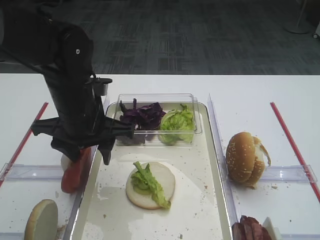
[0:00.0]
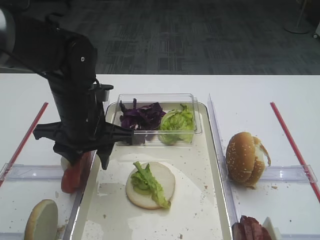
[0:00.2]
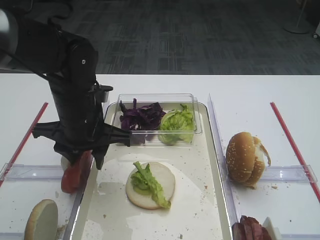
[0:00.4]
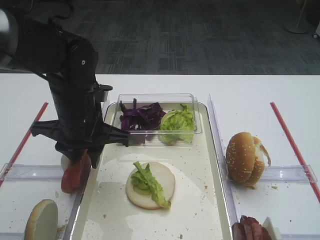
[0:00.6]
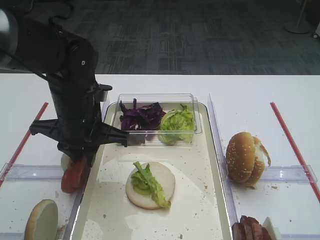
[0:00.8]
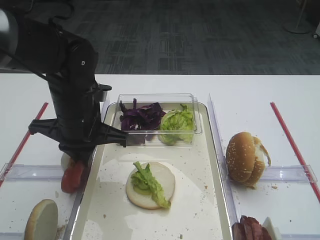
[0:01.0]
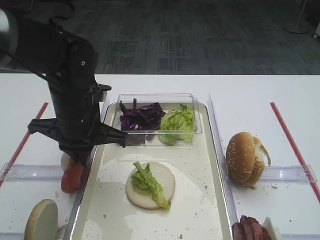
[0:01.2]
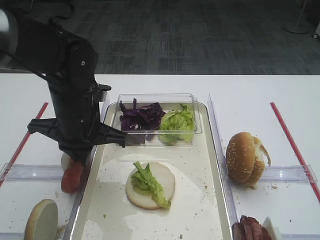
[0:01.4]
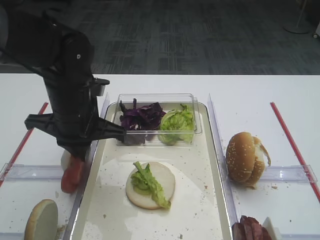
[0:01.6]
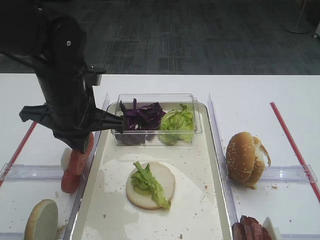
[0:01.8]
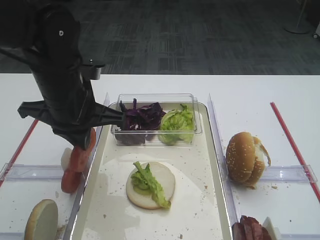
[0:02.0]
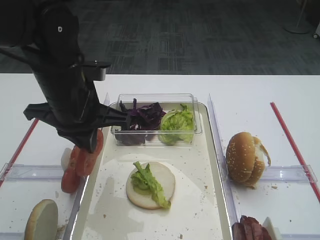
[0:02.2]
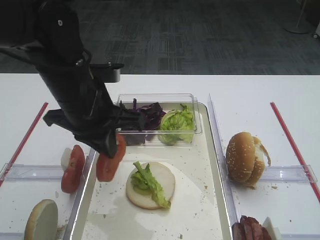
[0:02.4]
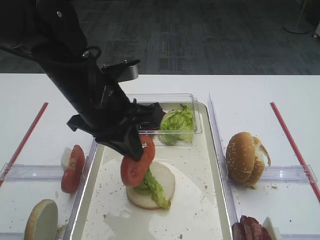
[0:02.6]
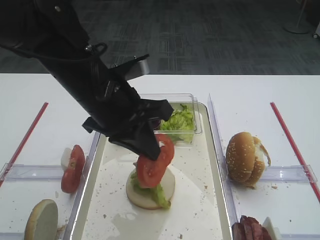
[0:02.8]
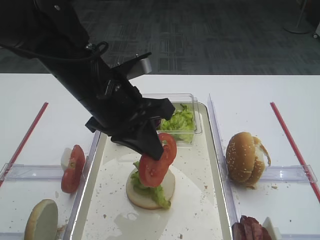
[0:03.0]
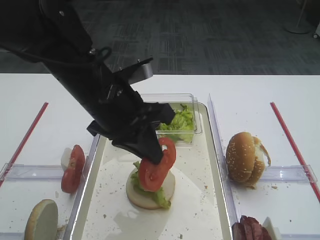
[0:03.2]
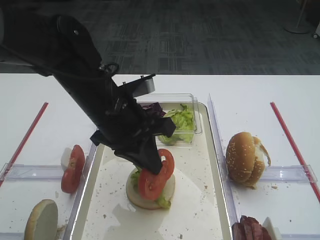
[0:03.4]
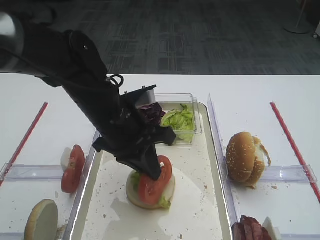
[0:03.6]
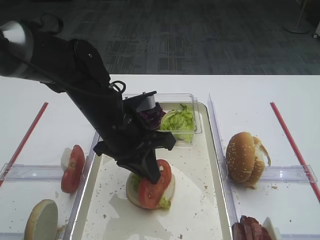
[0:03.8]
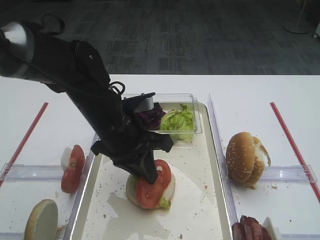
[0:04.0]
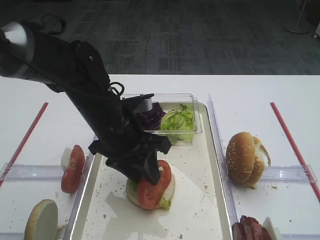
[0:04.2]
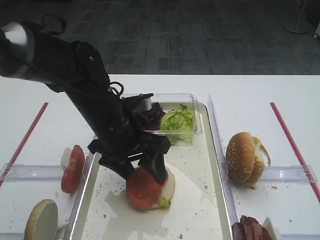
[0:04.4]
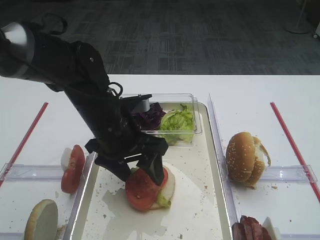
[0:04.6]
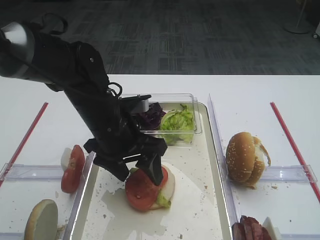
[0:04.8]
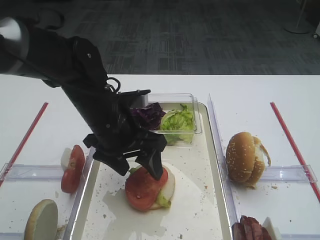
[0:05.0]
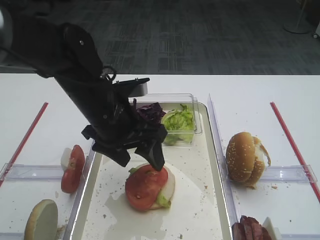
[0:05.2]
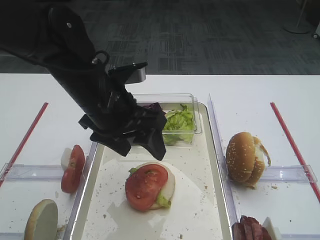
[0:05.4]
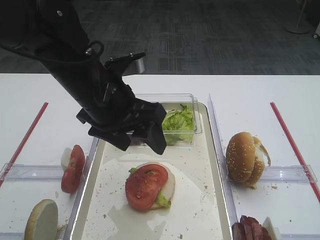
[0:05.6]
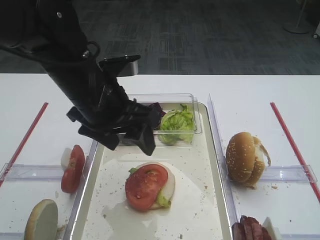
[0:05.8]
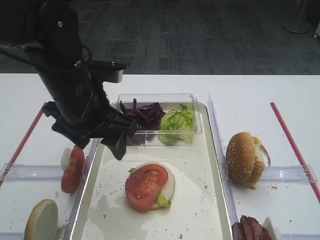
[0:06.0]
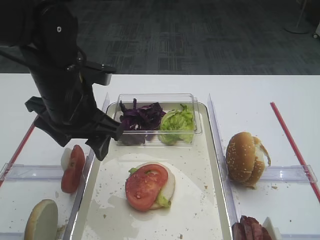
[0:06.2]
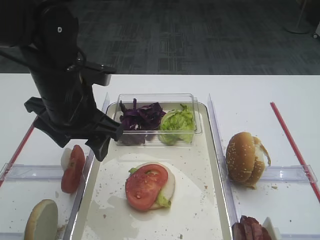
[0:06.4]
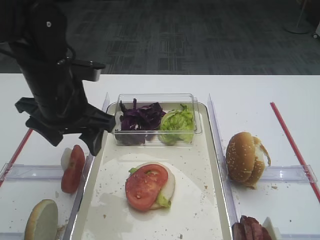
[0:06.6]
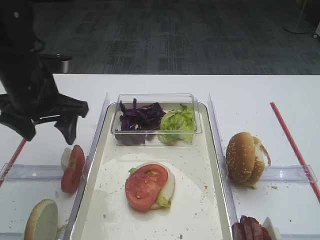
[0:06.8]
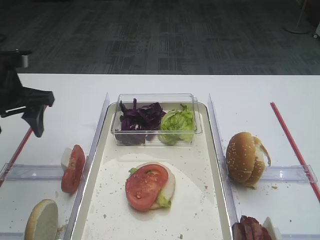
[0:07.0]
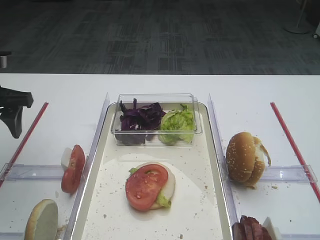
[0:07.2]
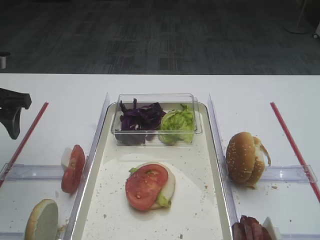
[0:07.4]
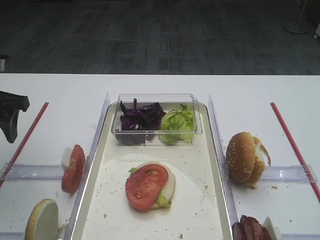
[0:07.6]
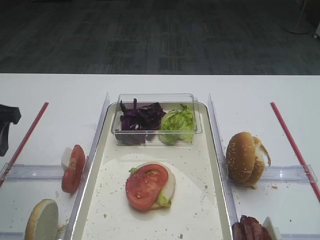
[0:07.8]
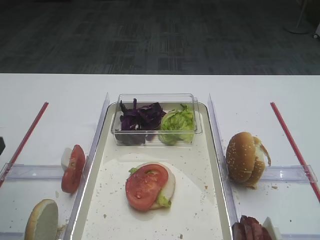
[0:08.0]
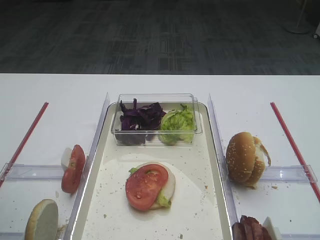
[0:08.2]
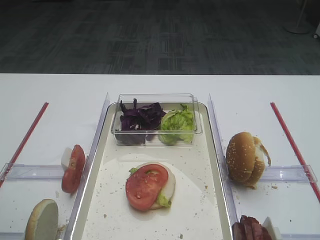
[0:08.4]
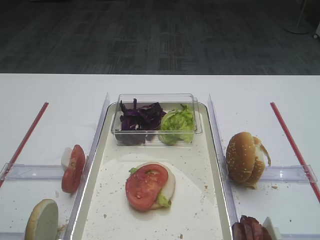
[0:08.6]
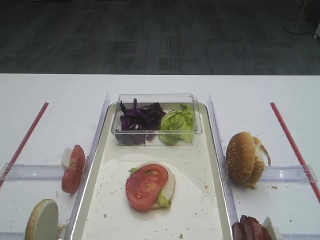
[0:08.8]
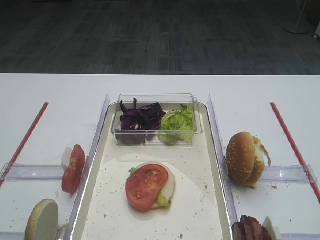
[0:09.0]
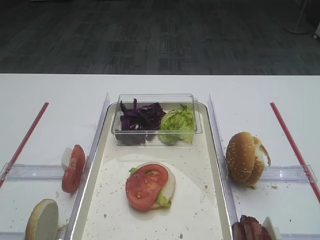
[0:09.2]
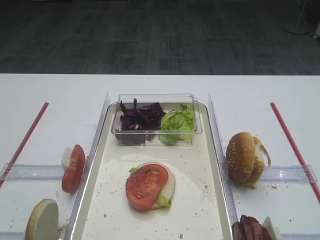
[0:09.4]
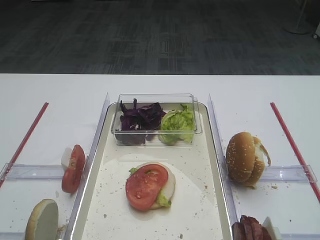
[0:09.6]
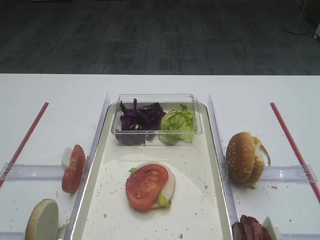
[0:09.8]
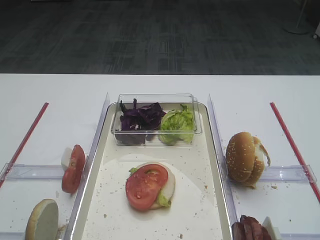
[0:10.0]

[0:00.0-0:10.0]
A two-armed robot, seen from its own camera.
Step, 0.0 to 2.0 s: Pick up the tomato slice with the left gripper.
Step, 2.2 to 5.0 s: Place the tomato slice on the lettuce leaf with the left gripper.
0.0 to 1.4 s: The left gripper closes.
1.4 to 2.8 s: The left gripper shifts roughly 5 cm upward.
2.8 to 4.2 s: The left gripper goes roughly 5 cm downward, and opens up.
4.2 to 5.8 s: The left gripper moves upward, some 5 cm, and opens up.
5.8 to 7.2 s: The left gripper moves to the left, some 20 cm.
7.2 to 8.6 s: The left gripper travels backward by some 20 cm.

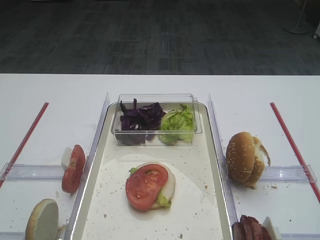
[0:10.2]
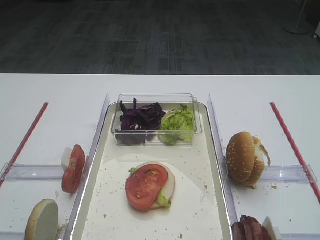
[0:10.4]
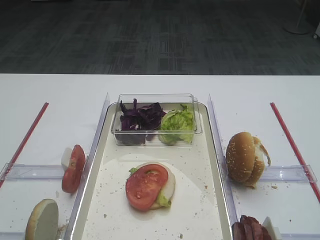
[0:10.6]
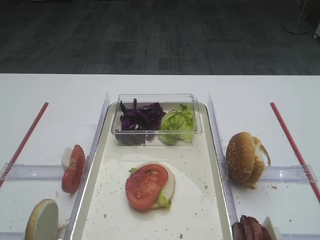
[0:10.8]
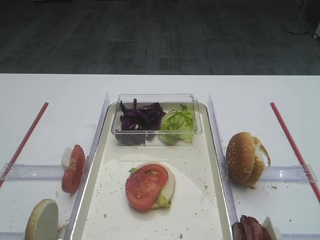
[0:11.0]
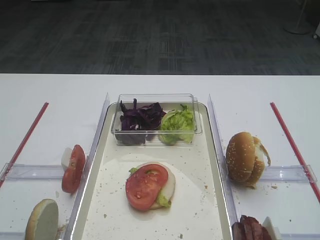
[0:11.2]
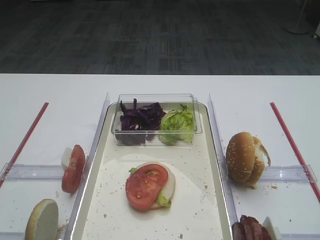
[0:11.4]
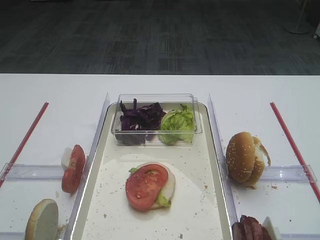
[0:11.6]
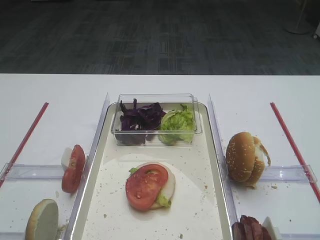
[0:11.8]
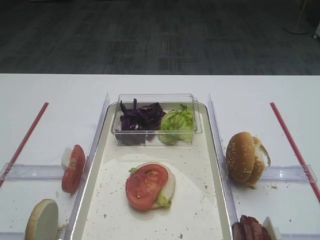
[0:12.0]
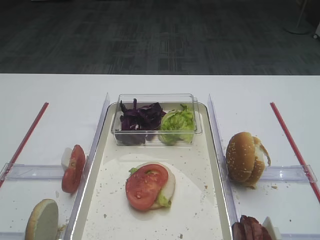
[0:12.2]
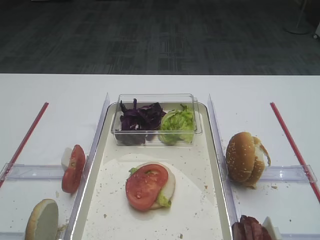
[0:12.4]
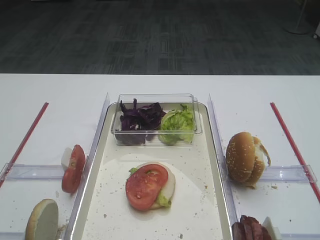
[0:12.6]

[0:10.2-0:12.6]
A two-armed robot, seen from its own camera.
10.2 to 12.6 s: The two grippers keep their place.

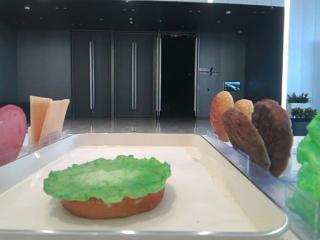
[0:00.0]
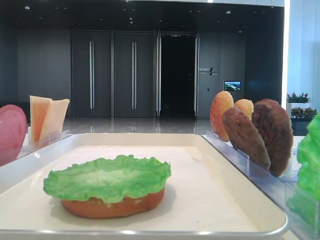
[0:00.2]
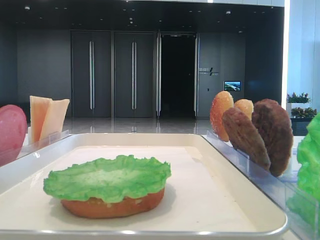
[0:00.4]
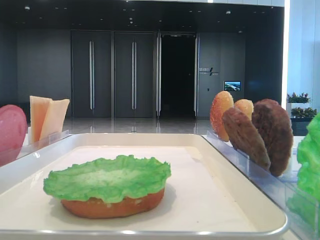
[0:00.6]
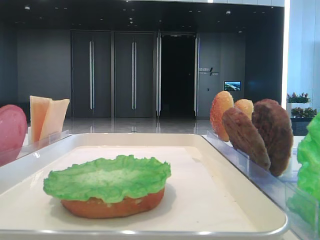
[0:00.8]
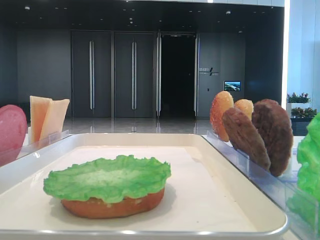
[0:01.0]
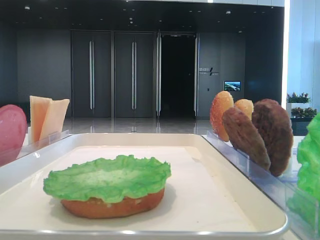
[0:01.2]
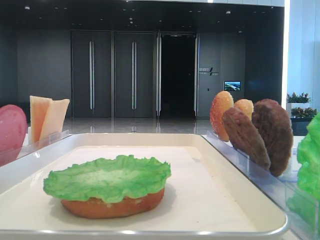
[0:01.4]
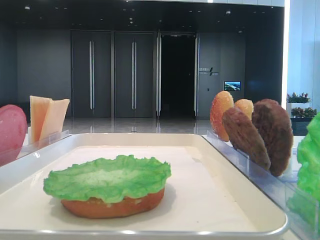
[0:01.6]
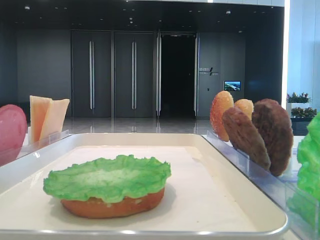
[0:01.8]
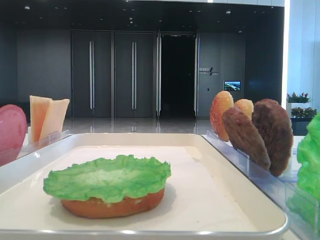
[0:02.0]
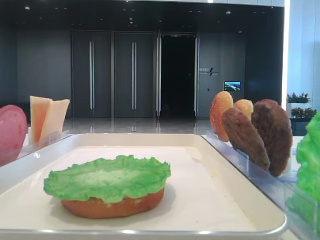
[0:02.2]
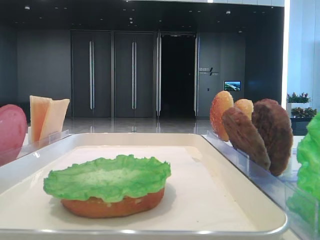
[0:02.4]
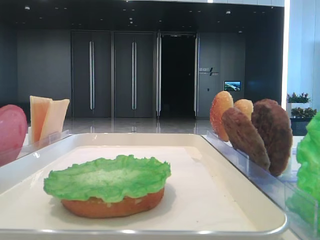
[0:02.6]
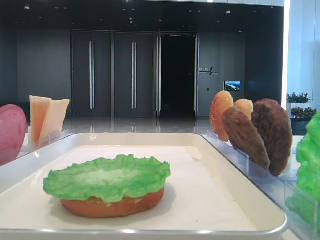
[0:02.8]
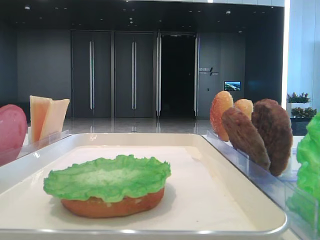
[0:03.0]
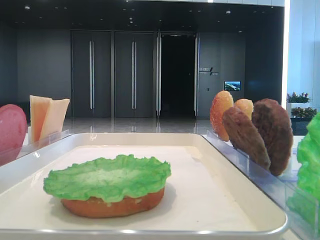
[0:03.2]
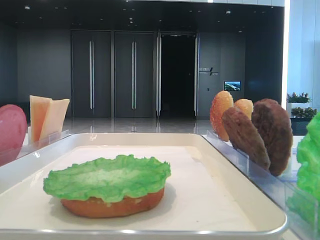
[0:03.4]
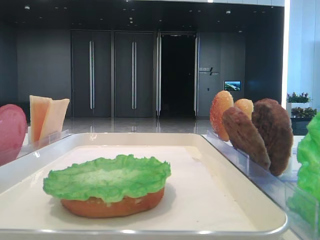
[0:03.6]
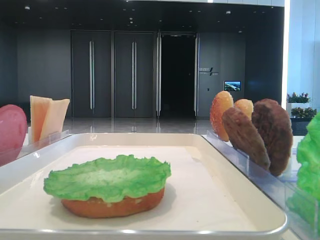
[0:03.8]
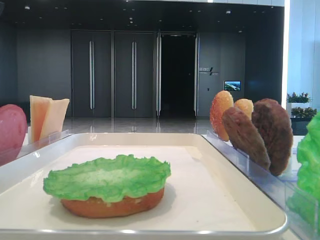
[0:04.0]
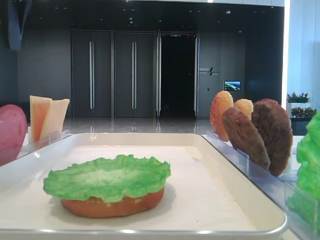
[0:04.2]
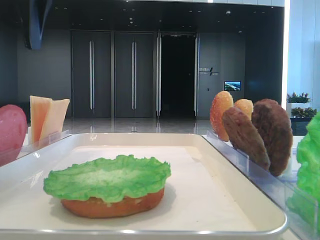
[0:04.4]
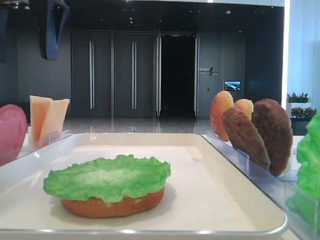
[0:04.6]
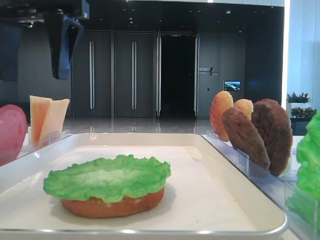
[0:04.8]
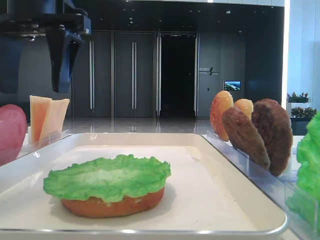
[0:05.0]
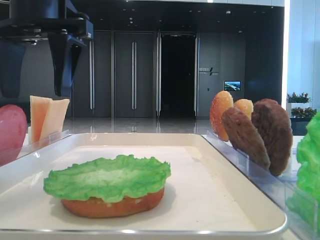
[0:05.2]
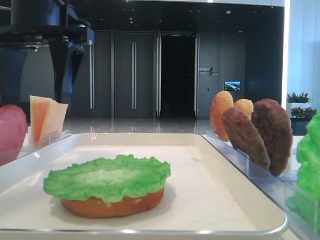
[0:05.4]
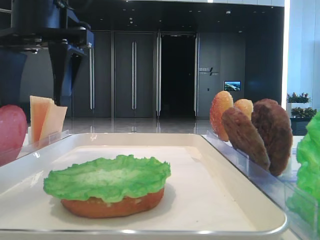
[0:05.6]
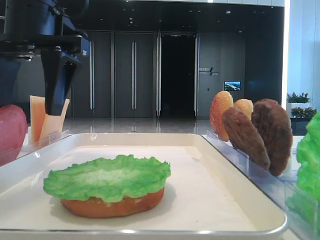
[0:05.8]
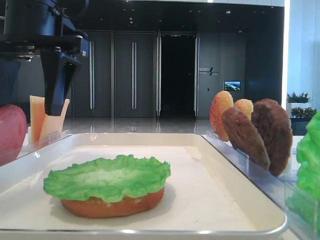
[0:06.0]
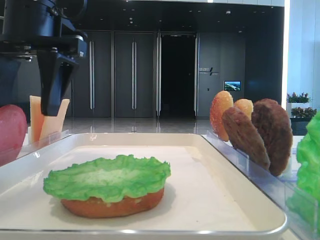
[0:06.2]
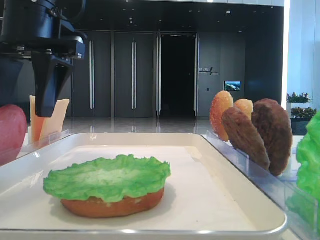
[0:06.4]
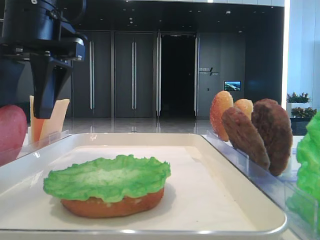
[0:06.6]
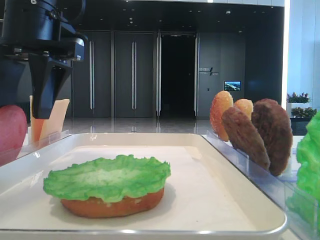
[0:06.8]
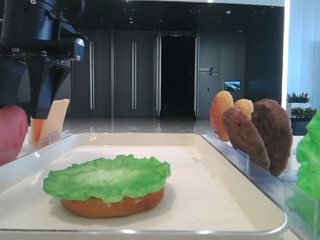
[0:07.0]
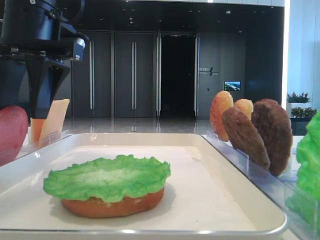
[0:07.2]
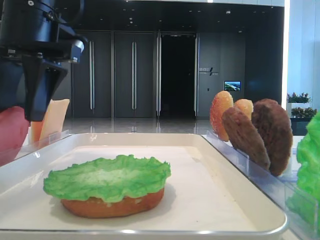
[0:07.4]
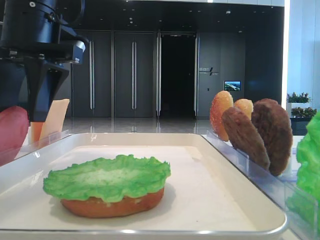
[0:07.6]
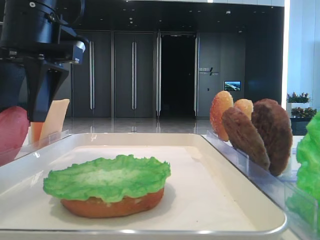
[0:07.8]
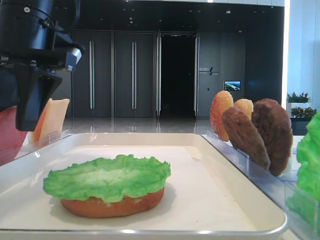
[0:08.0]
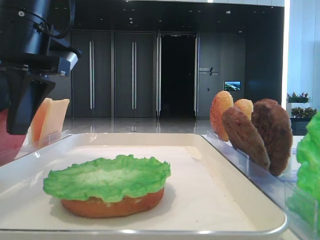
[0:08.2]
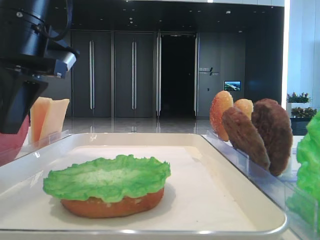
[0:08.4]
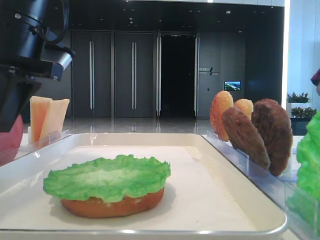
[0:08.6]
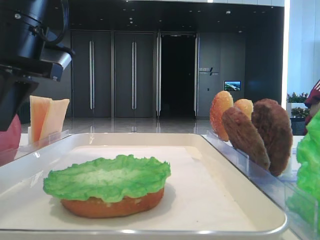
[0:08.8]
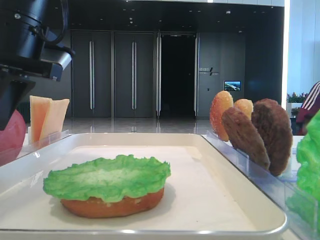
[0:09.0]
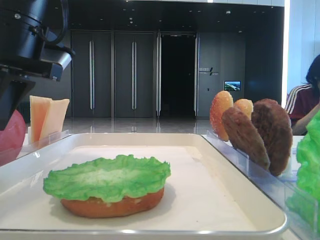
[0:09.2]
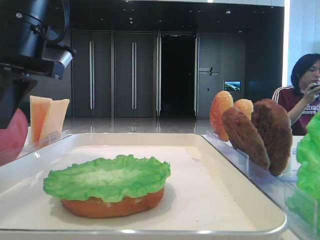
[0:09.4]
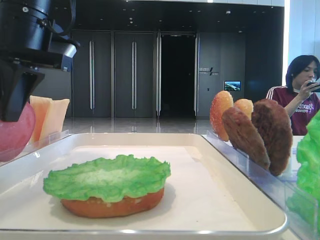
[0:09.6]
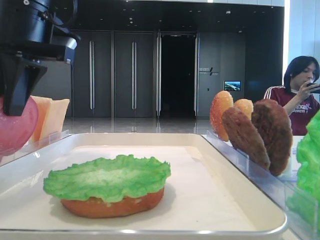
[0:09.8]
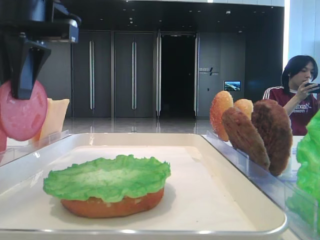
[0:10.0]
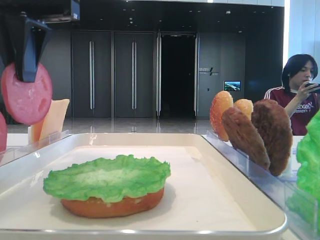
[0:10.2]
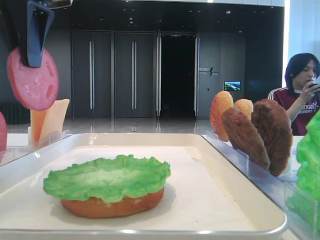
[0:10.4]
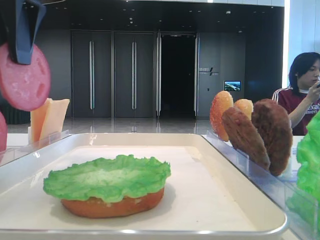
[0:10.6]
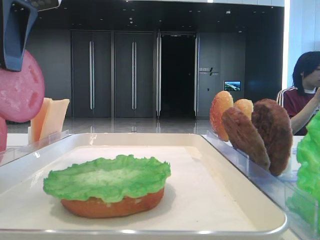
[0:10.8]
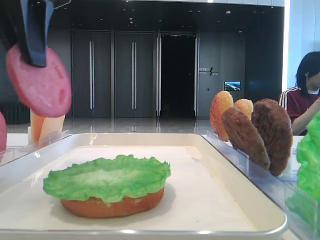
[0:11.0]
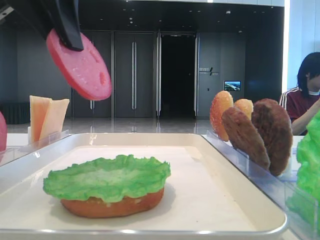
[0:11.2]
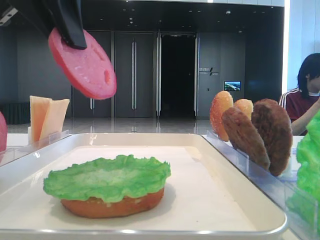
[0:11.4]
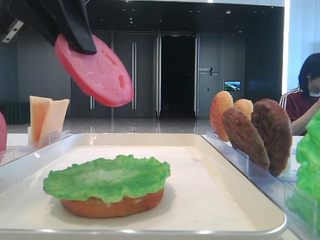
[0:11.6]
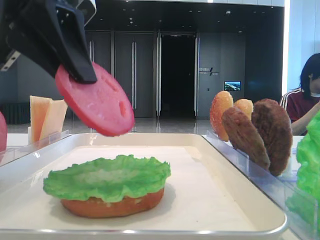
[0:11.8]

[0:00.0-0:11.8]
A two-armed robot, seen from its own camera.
Step, 0.0 to 8.8 s: Pick up the tomato slice with the left hand.
3.0 to 4.4 s: The left gripper goes about 10 cm to the right.
4.4 to 6.0 s: The left gripper goes about 10 cm downward and to the right.
6.0 to 7.4 s: The left gripper closes its fingers.
7.4 to 8.8 s: The left gripper closes its fingers.
8.8 to 10.4 s: The left gripper goes roughly 10 cm upward.
10.4 to 11.8 s: The left gripper goes about 5 cm downward and backward.
